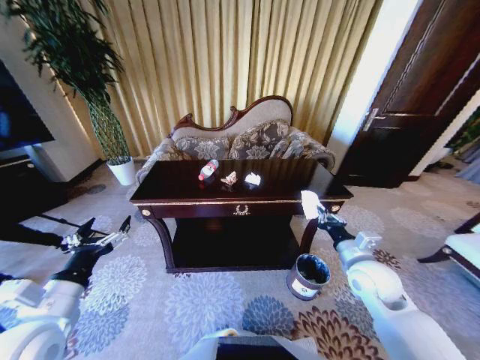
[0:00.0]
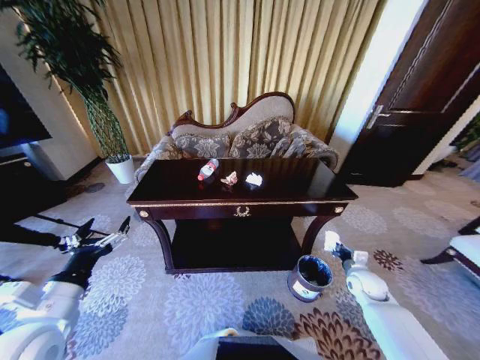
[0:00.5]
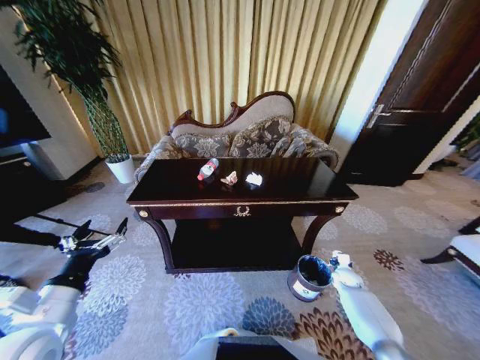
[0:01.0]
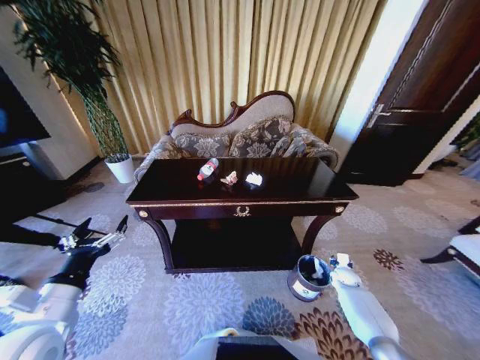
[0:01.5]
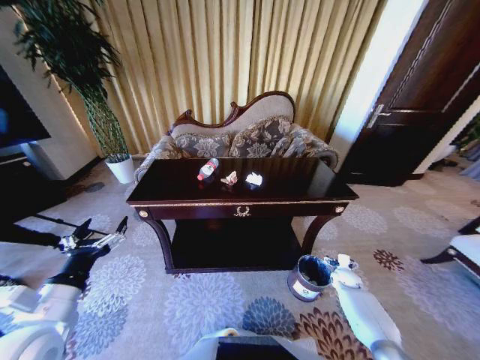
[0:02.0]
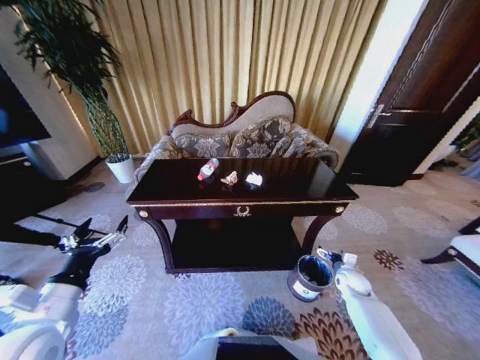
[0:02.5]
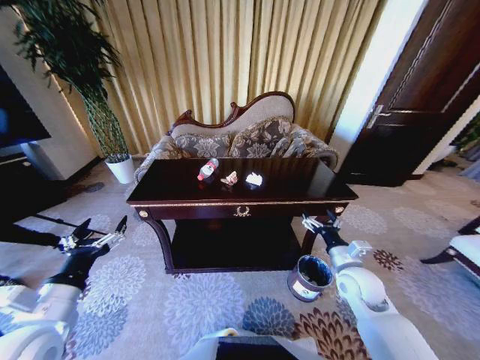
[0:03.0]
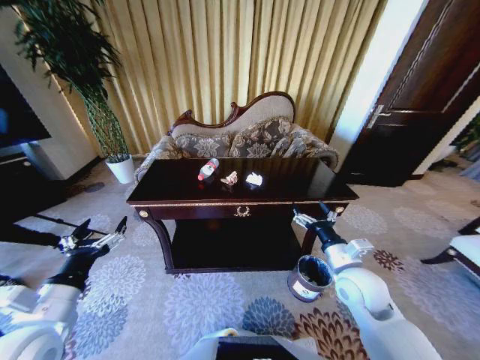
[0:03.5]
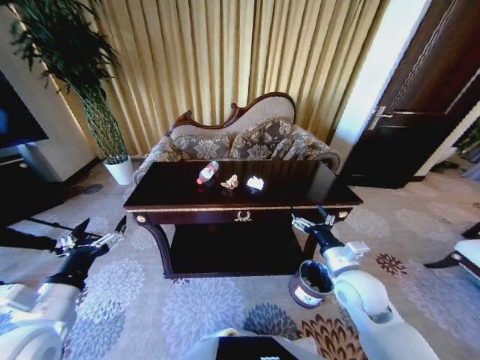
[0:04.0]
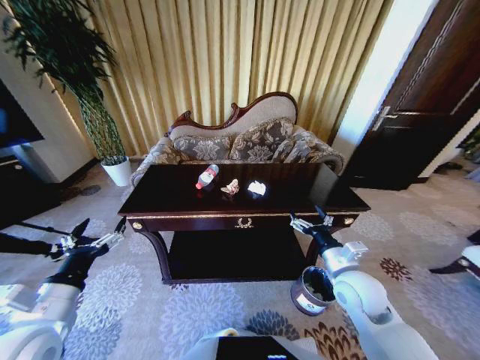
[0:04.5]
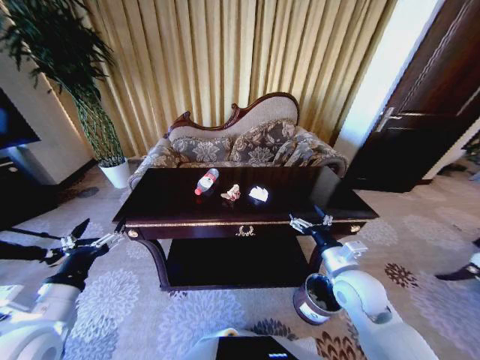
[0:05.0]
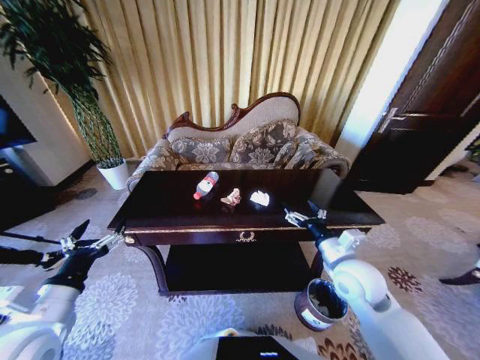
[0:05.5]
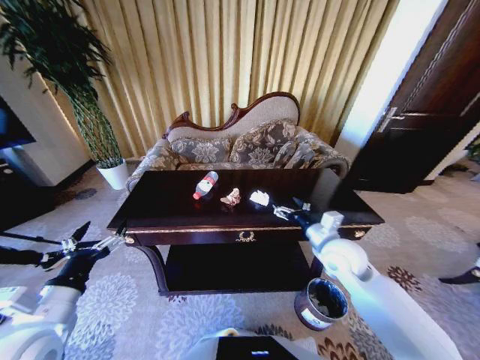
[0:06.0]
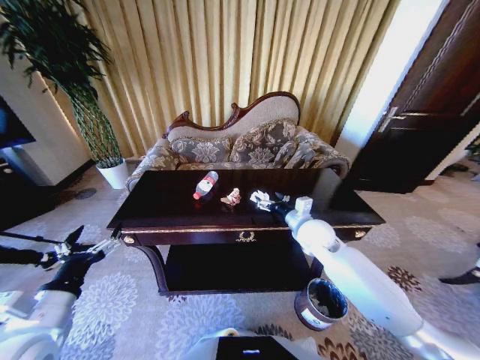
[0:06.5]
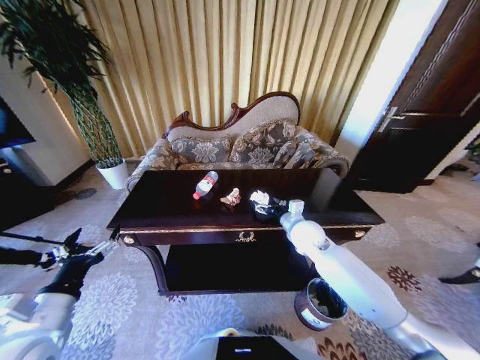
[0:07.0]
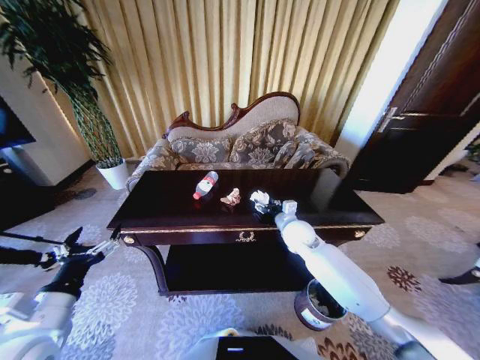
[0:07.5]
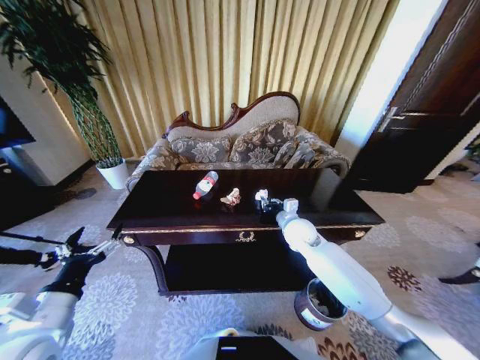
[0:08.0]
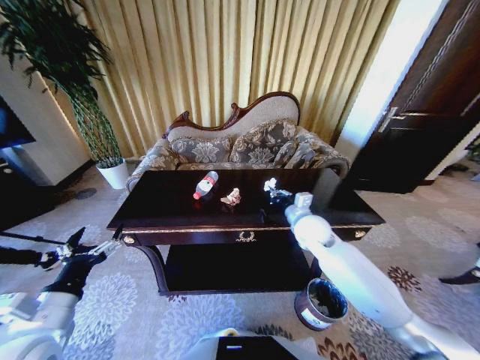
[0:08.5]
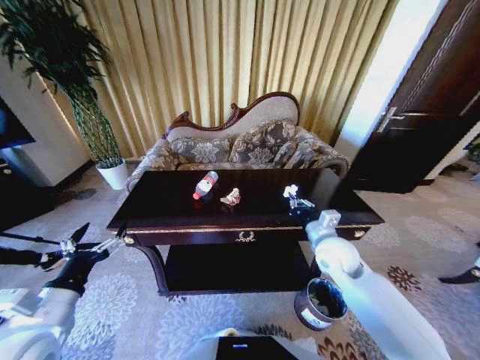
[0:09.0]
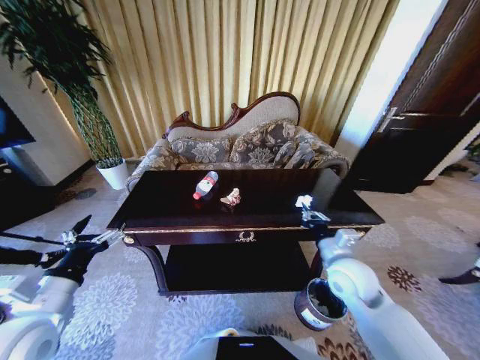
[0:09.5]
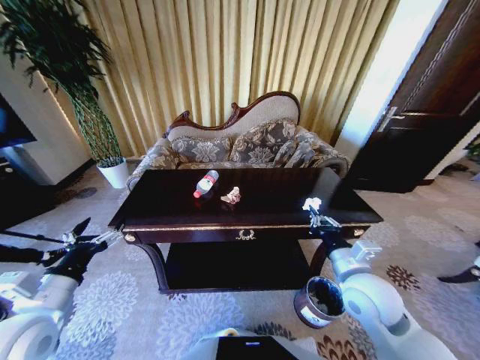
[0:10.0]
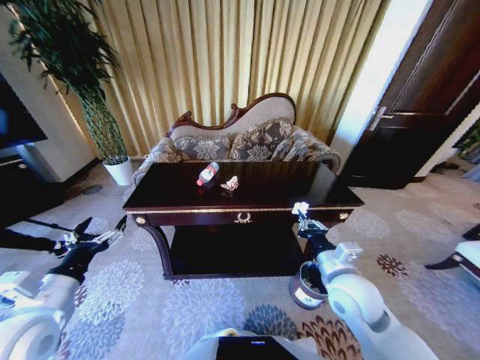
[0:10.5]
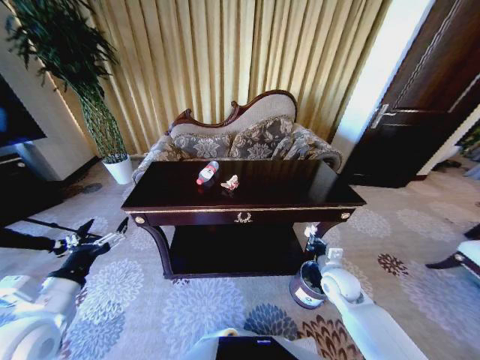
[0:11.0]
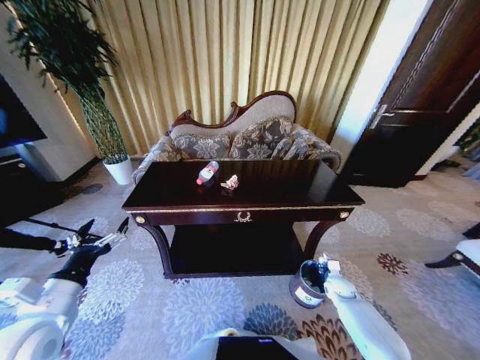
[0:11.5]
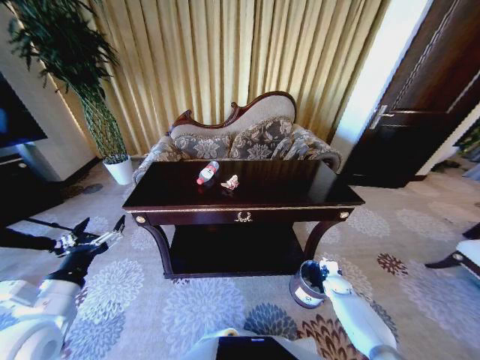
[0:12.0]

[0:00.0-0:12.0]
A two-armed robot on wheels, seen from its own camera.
Task of the whole recording: Move to the front of the table and place the trash on the table into the trash bin.
0:00.0 to 0:02.0: The right gripper heads downward and to the right, covering some 30 cm, and opens up.
0:02.0 to 0:04.0: The right gripper heads upward and to the left, covering approximately 30 cm.
0:04.0 to 0:06.0: The right gripper heads forward, covering roughly 10 cm.
0:06.0 to 0:08.0: The right gripper is displaced forward, downward and to the left by approximately 10 cm, and closes its fingers.
0:08.0 to 0:10.0: The right gripper travels backward by some 20 cm.
0:10.0 to 0:12.0: The right gripper shifts about 35 cm downward and to the right.

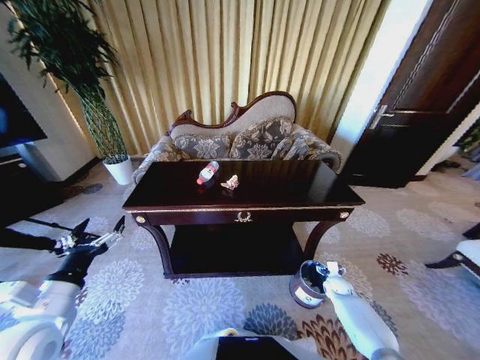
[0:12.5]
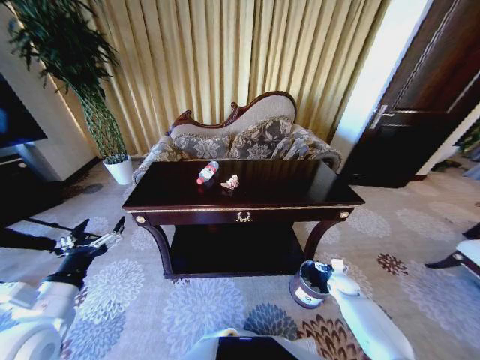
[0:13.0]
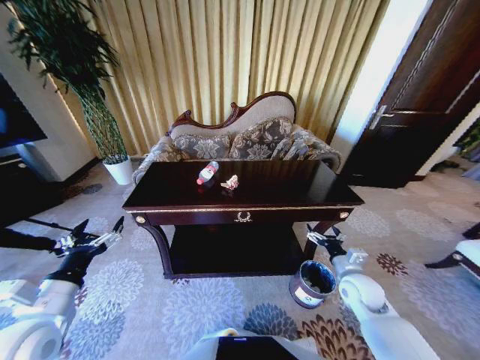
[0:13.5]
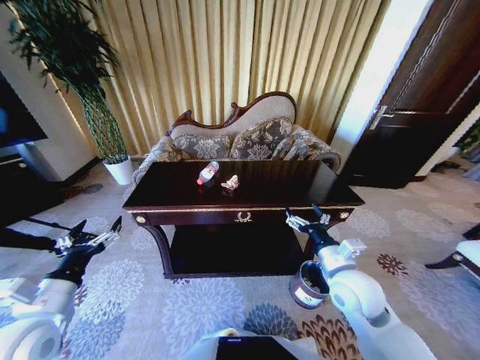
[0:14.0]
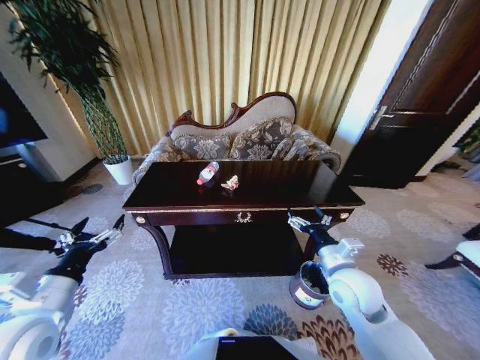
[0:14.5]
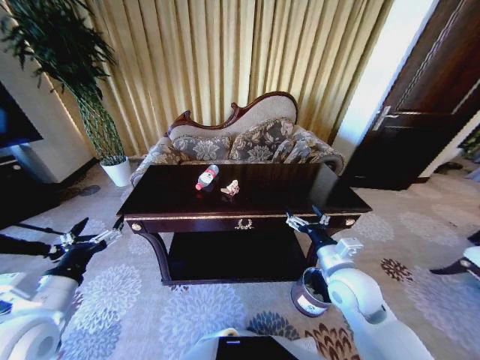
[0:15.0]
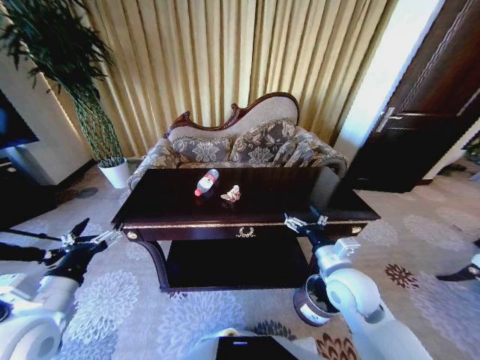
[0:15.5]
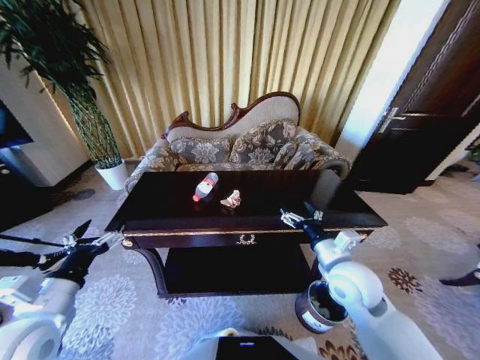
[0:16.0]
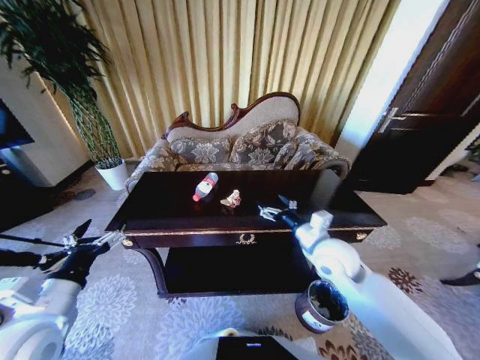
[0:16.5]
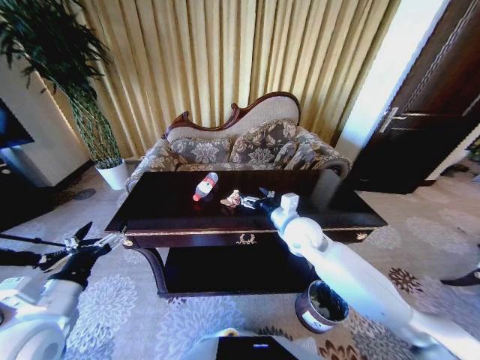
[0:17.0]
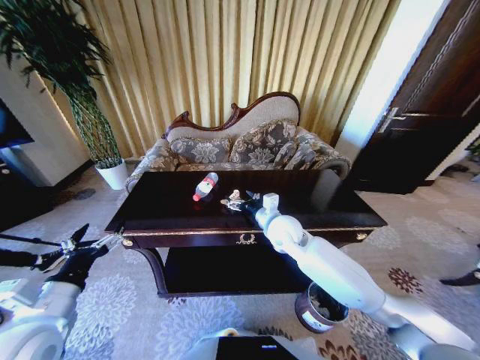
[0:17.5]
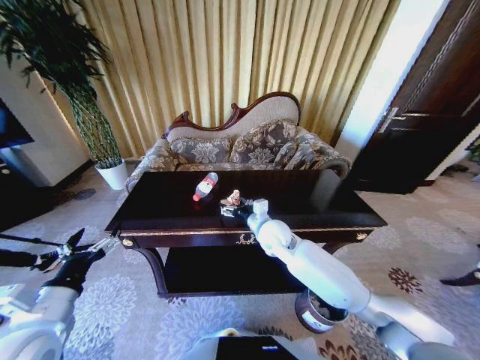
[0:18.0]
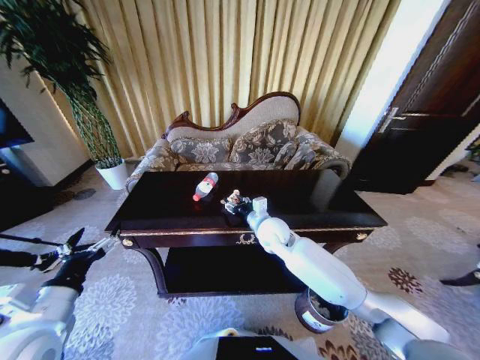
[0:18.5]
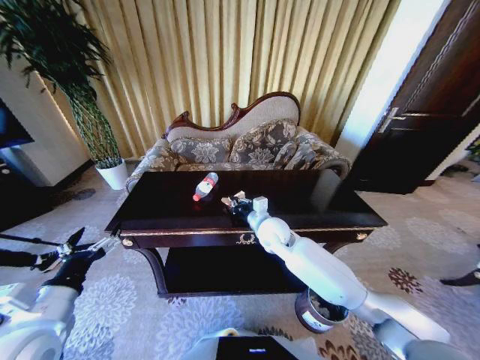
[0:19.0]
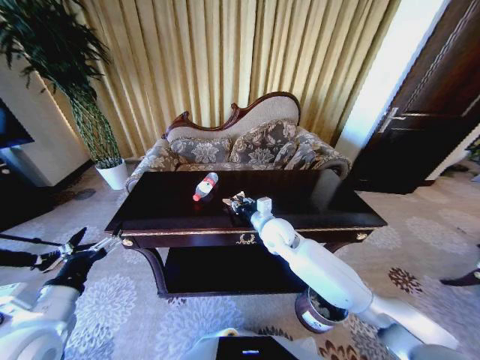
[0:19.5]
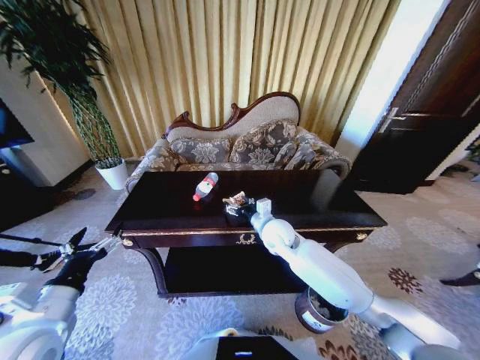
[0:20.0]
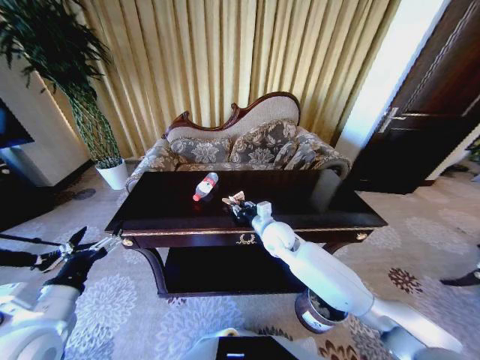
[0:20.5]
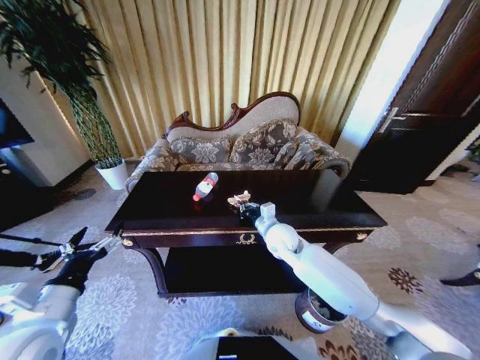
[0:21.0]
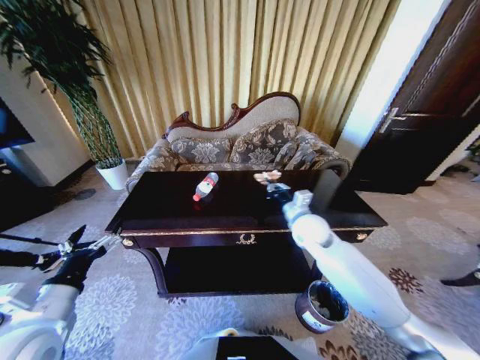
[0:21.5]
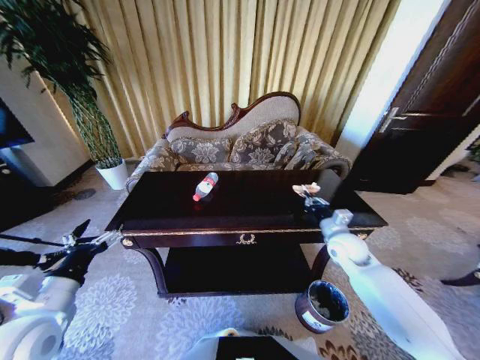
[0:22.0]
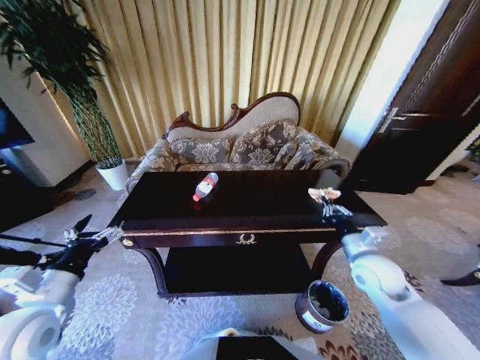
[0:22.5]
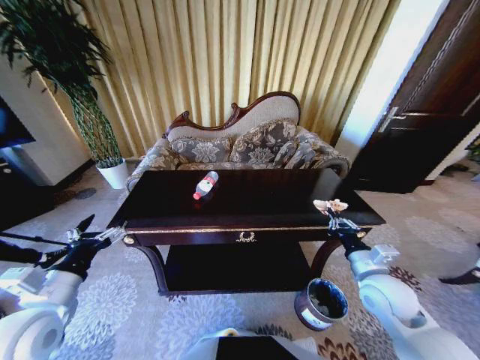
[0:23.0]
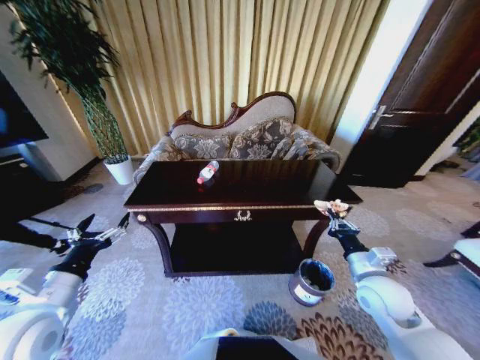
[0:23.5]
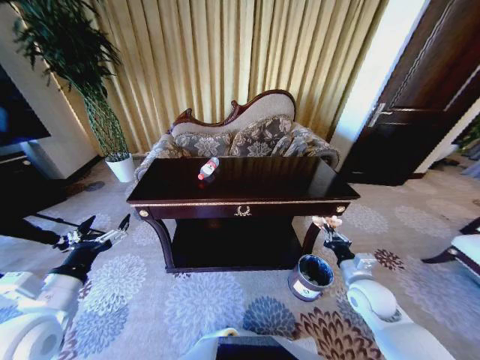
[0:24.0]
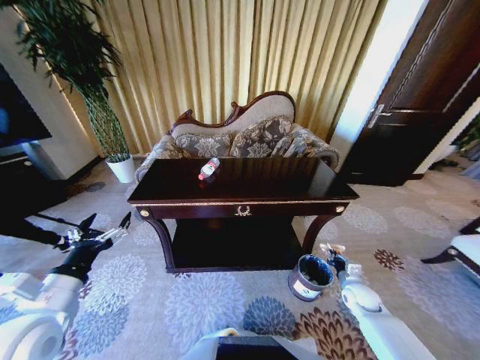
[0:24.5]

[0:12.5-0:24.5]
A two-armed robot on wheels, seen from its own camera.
Task of the whole recording: Move to the front of the table and place the trash on the table into the trash bin.
0:12.5 to 0:14.5: The right gripper shifts approximately 35 cm upward and to the left.
0:14.5 to 0:16.5: The right gripper is displaced forward by roughly 5 cm.
0:16.5 to 0:18.5: The right gripper goes some 15 cm to the left and forward.
0:18.5 to 0:20.5: There are only small adjustments of the grippers.
0:20.5 to 0:22.5: The right gripper is displaced to the right and backward by some 25 cm, and closes up.
0:22.5 to 0:24.5: The right gripper moves downward, approximately 20 cm.

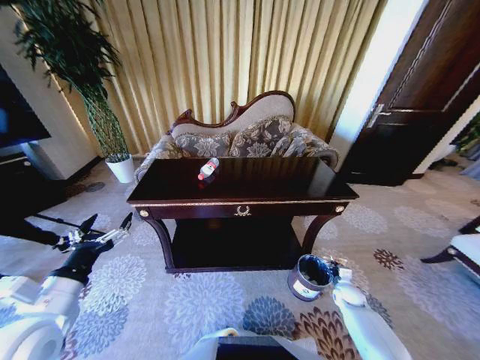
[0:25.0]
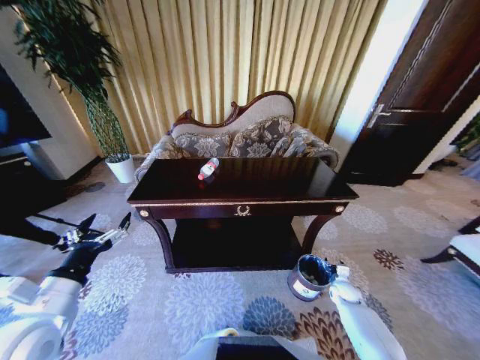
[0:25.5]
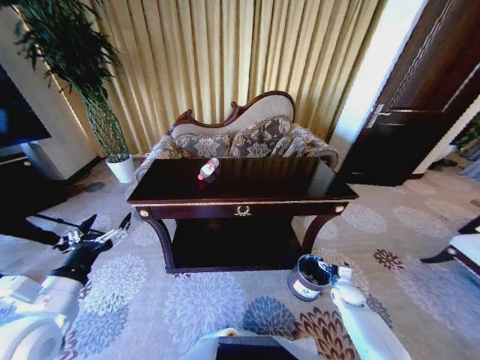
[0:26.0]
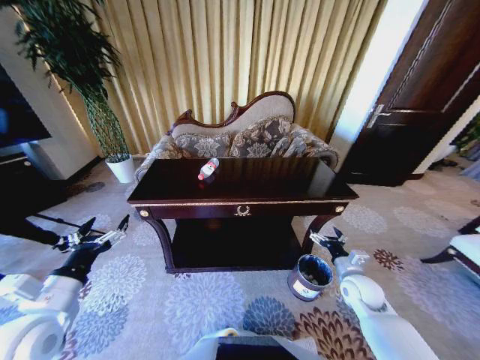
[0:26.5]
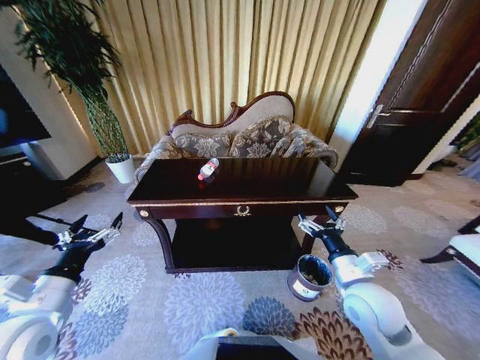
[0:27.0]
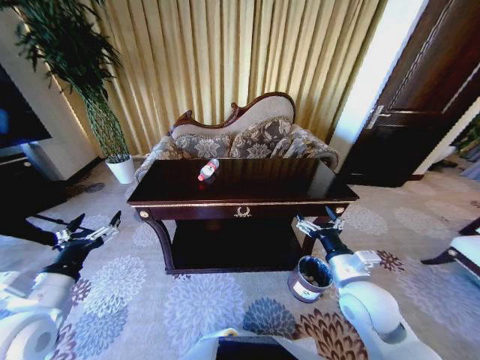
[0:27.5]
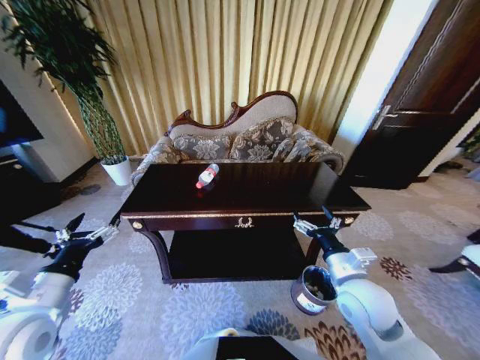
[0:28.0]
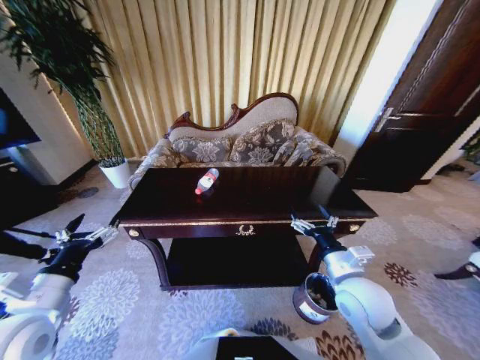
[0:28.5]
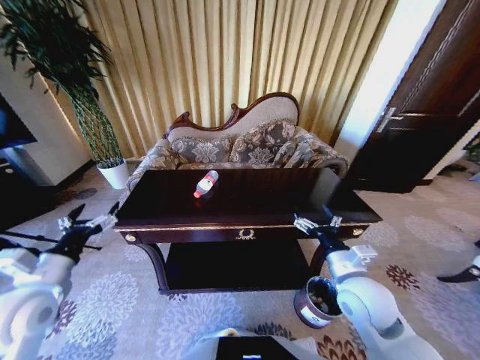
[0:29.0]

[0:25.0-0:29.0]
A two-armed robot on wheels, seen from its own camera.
Task of the whole recording: Move to the front of the table and place the trash on the table into the trash bin.
0:25.0 to 0:27.0: The right gripper heads upward and to the left, covering about 35 cm, and opens up.
0:27.0 to 0:29.0: The left gripper moves about 5 cm.
